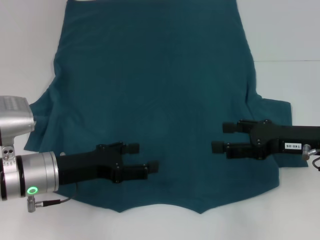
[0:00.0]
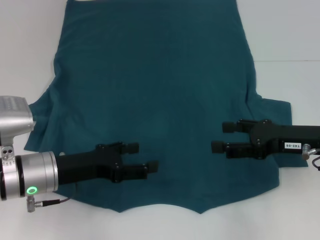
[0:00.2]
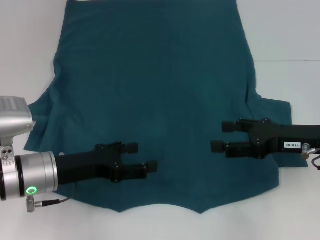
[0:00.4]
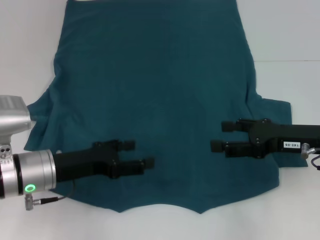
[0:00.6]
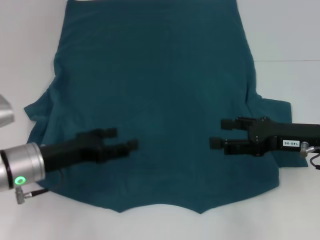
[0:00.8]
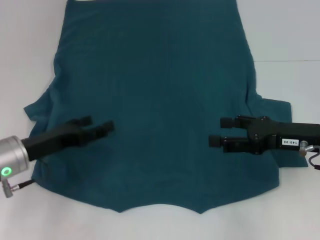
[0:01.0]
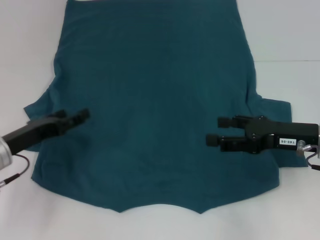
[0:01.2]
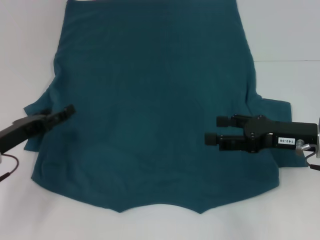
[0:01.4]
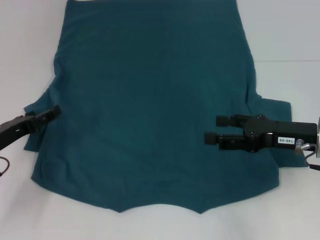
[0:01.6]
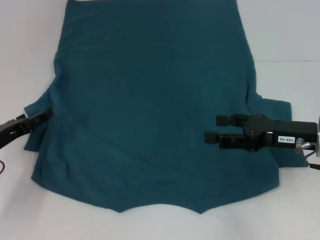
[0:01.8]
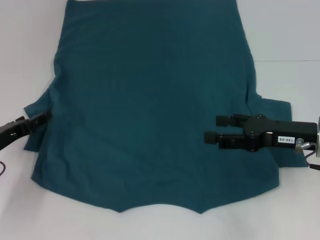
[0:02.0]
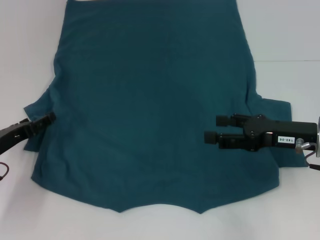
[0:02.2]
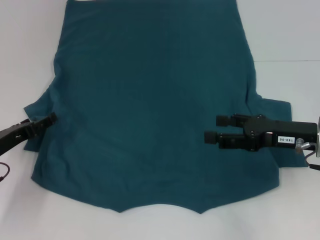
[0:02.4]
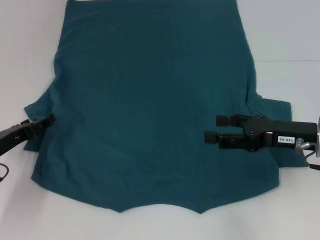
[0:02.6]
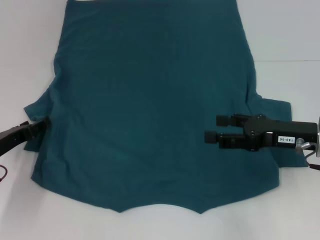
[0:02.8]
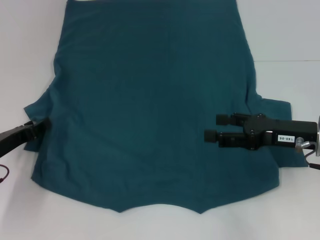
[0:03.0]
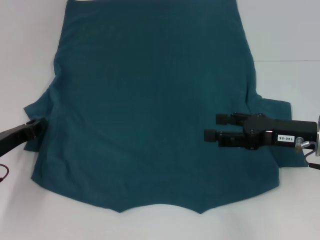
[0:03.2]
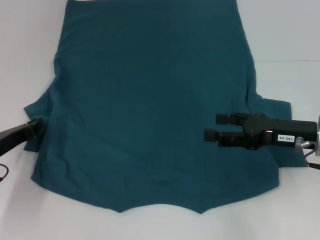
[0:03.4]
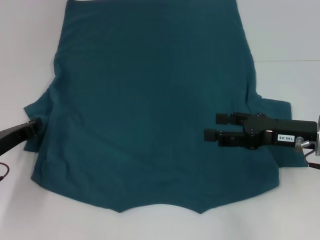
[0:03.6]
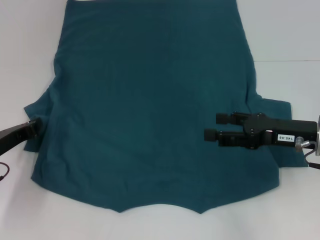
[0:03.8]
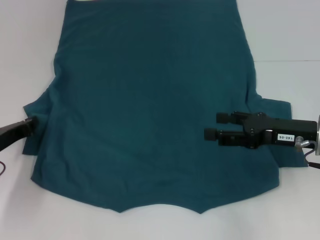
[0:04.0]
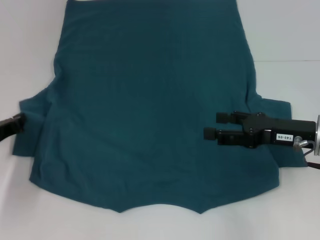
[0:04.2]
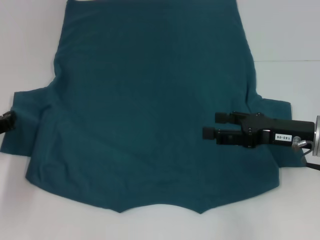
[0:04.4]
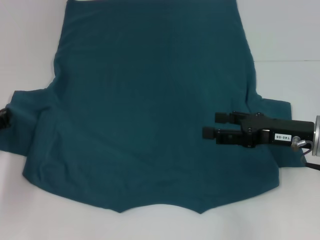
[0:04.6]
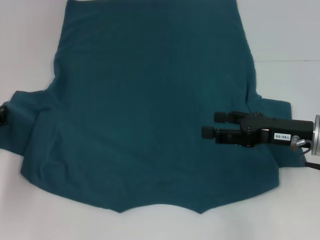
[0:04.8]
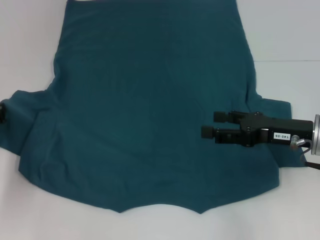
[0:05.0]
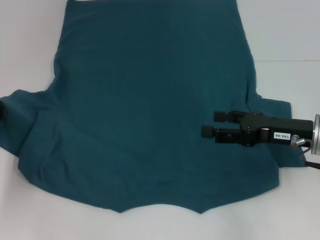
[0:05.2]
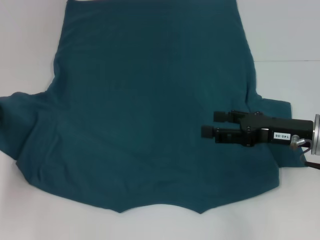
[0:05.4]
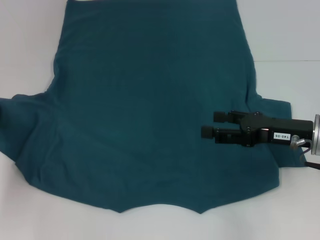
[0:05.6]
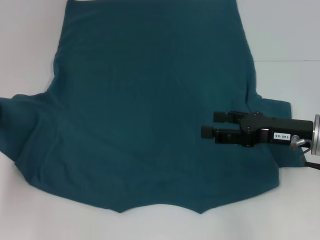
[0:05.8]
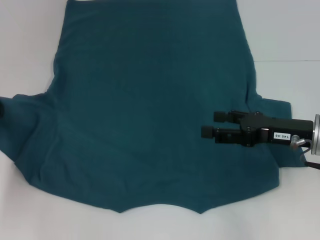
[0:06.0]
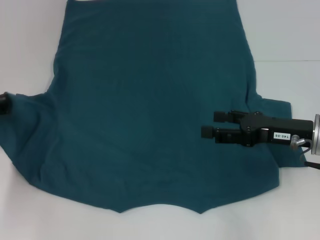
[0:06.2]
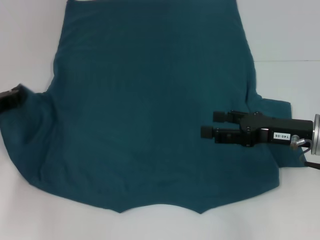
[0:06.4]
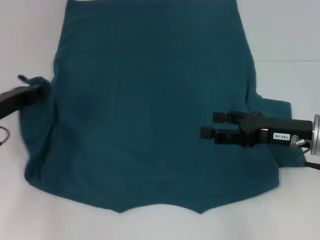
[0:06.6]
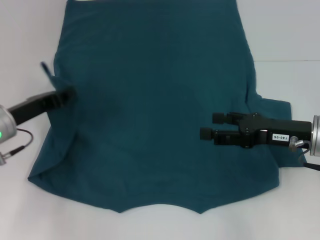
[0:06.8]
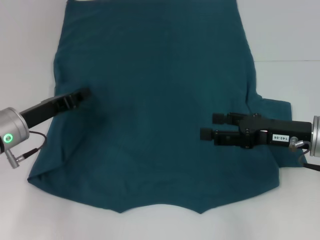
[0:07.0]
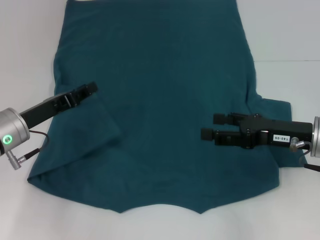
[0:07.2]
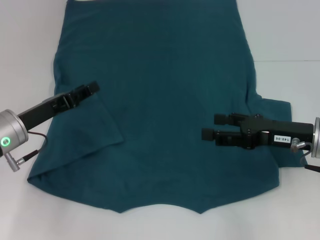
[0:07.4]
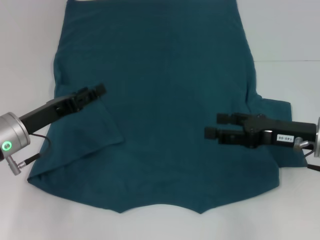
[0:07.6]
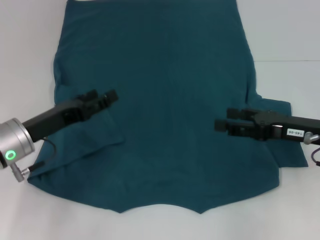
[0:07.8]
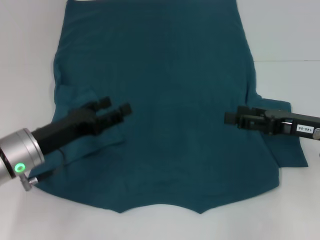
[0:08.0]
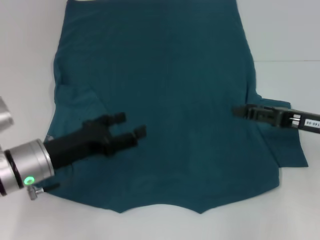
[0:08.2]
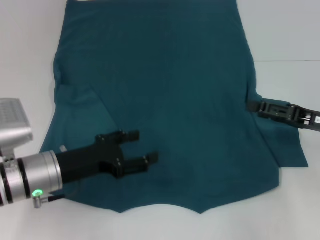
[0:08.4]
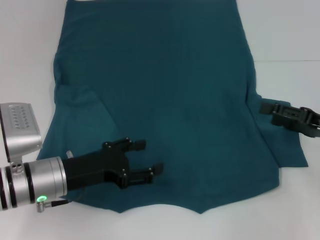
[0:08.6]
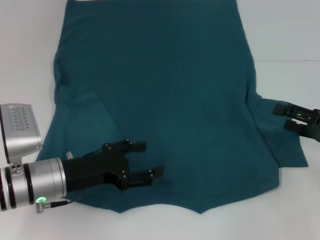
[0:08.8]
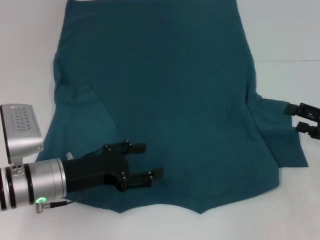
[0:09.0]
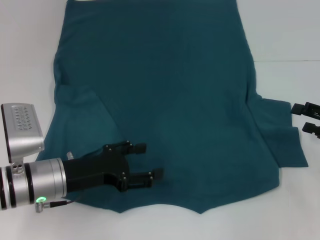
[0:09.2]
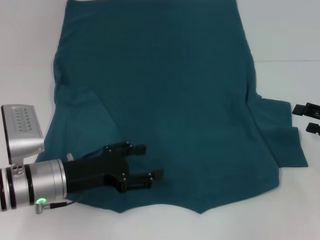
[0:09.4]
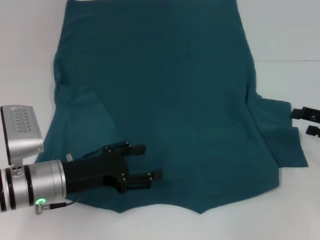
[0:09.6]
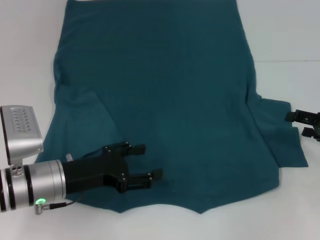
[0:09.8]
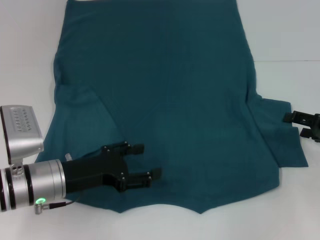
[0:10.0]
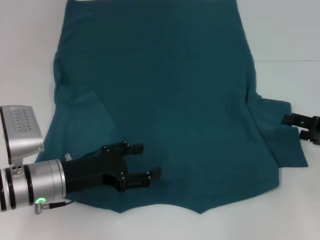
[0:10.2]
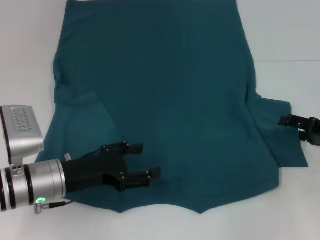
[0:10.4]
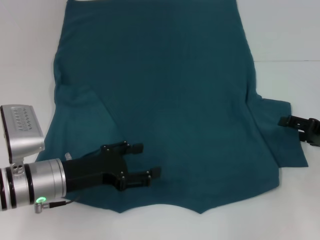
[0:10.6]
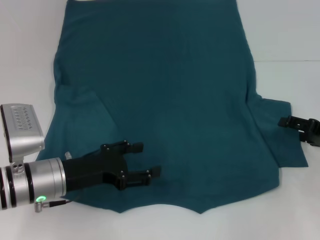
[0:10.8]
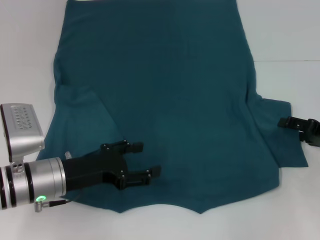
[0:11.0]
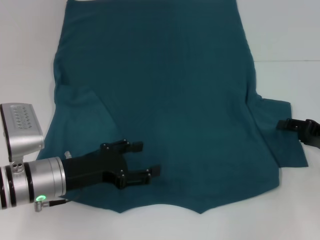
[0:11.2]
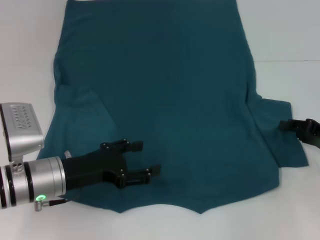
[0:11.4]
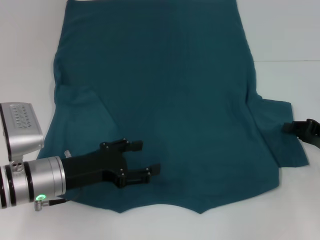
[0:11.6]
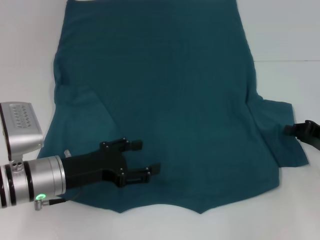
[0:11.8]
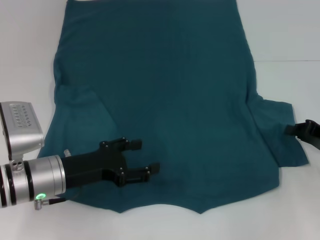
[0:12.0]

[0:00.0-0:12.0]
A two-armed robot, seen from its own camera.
Step, 0:00.0 to 0:07.6: Fold the bottom left sleeve with your left hand.
0:00.0 to 0:01.6: The left gripper travels to the left by some 10 cm.
0:01.6 to 0:03.0: The grippers stay close to where they were, moving slightly.
0:03.0 to 0:04.4: The left gripper closes its fingers.
0:04.4 to 0:06.0: There are only small adjustments of the grippers.
0:06.0 to 0:07.6: The left gripper moves to the right, about 10 cm, and opens up.
0:07.6 to 0:09.0: The left gripper travels to the right by some 5 cm; the right gripper goes about 10 cm to the right.
0:09.0 to 0:10.4: The grippers make only small movements.
0:10.4 to 0:12.0: The right gripper closes up.

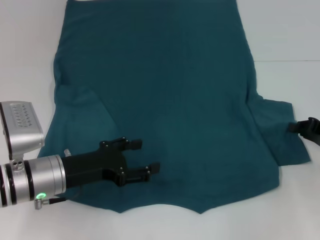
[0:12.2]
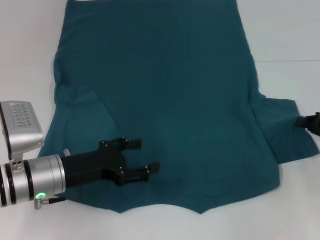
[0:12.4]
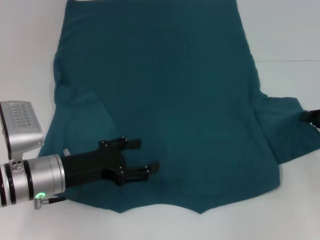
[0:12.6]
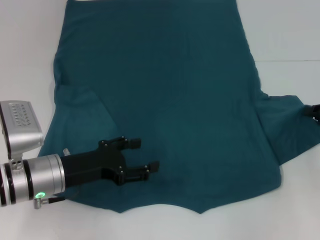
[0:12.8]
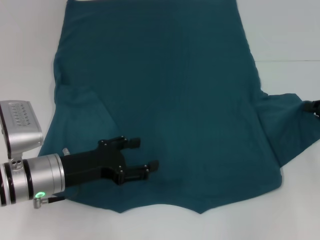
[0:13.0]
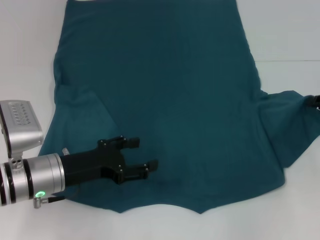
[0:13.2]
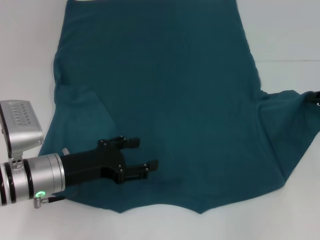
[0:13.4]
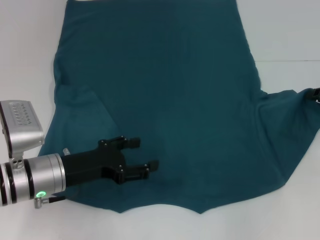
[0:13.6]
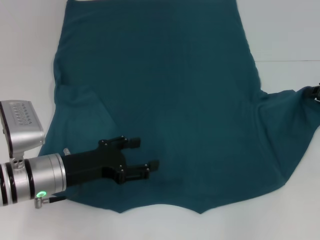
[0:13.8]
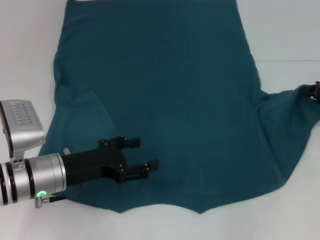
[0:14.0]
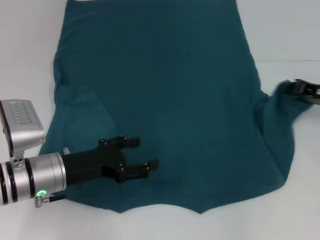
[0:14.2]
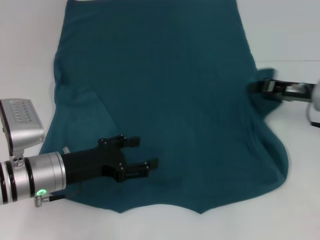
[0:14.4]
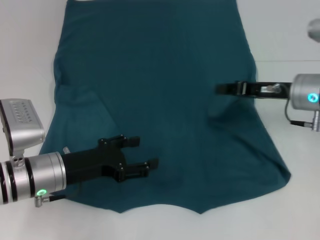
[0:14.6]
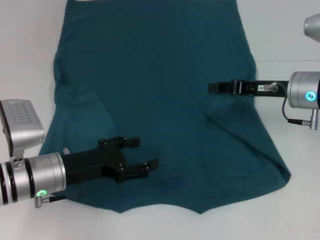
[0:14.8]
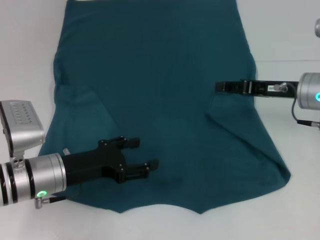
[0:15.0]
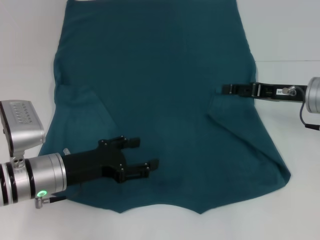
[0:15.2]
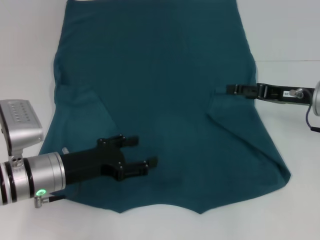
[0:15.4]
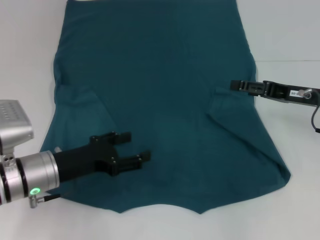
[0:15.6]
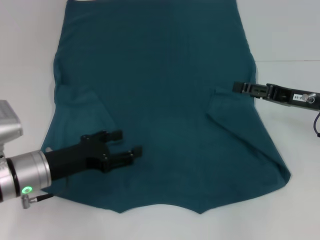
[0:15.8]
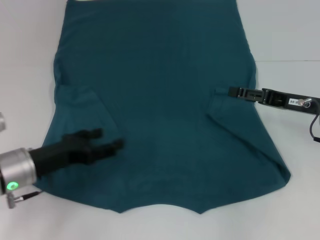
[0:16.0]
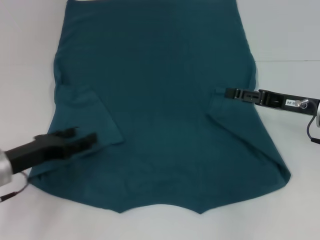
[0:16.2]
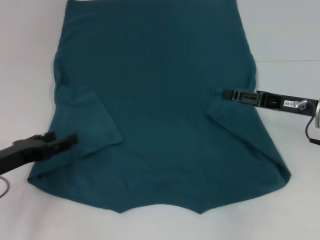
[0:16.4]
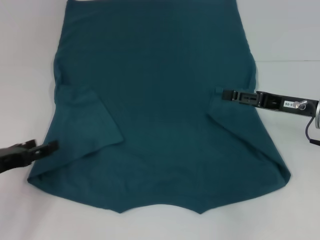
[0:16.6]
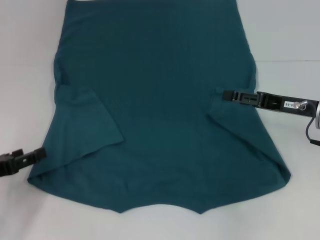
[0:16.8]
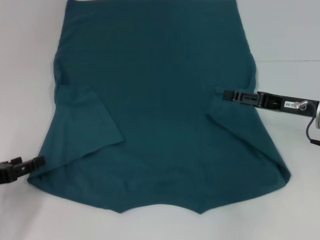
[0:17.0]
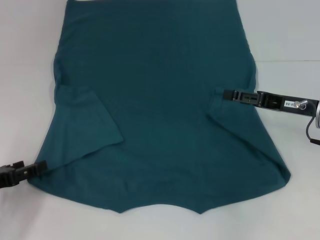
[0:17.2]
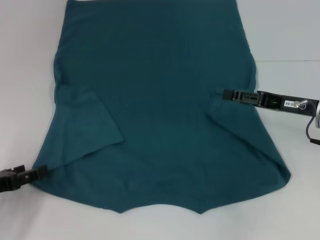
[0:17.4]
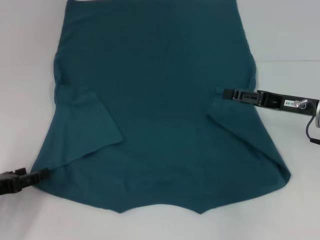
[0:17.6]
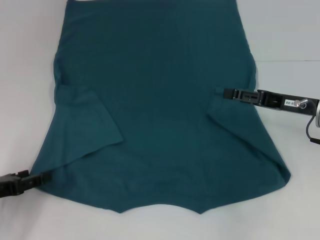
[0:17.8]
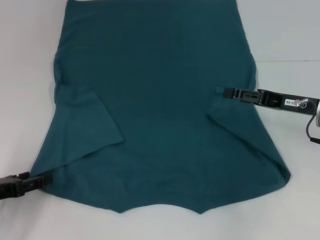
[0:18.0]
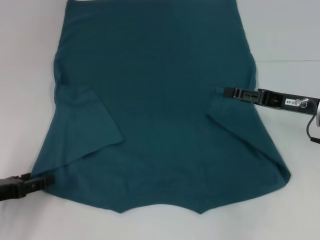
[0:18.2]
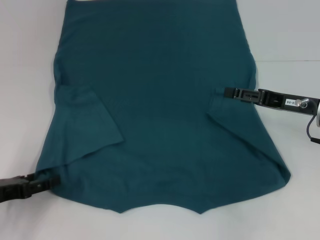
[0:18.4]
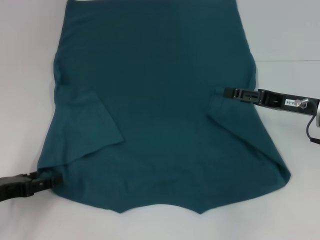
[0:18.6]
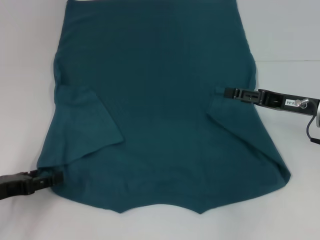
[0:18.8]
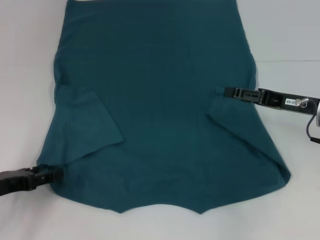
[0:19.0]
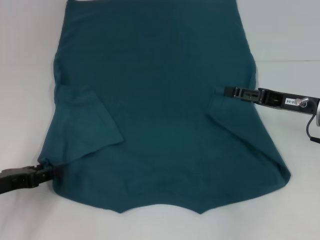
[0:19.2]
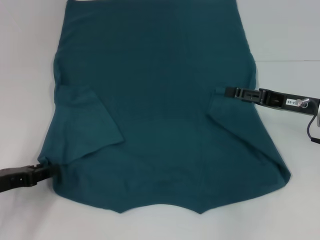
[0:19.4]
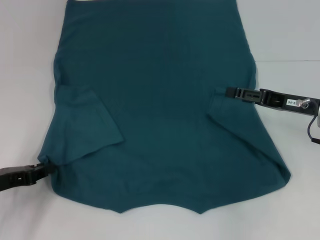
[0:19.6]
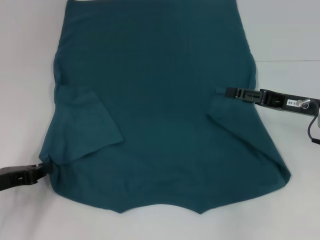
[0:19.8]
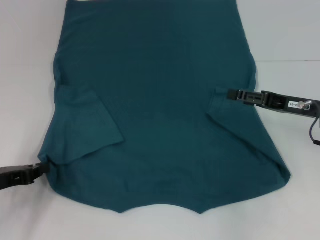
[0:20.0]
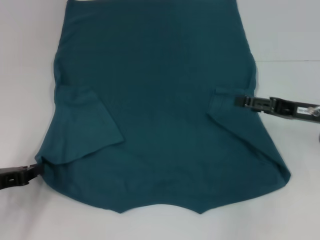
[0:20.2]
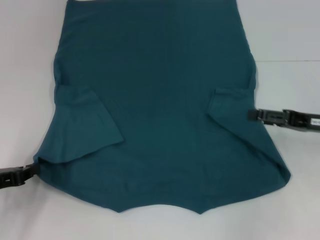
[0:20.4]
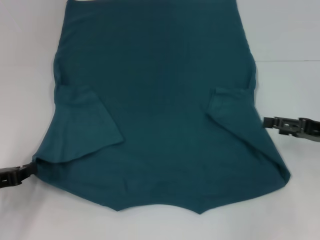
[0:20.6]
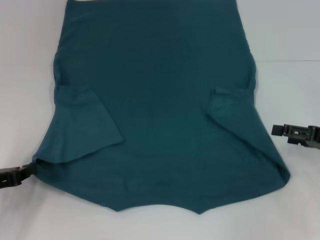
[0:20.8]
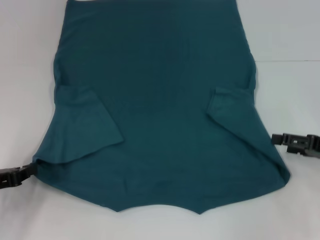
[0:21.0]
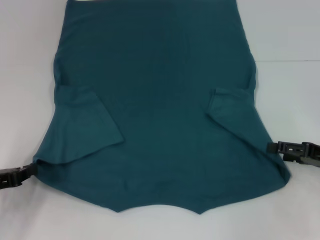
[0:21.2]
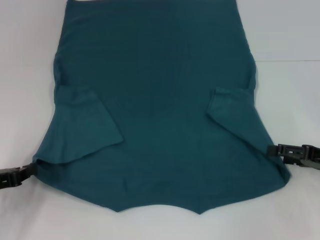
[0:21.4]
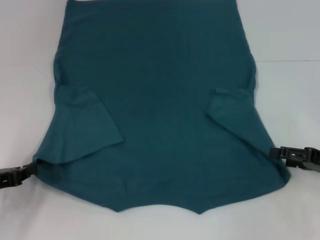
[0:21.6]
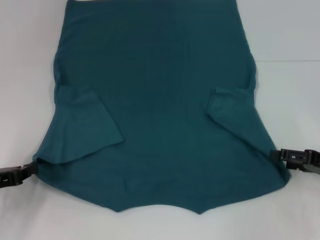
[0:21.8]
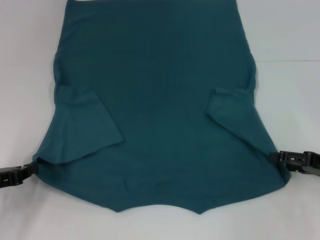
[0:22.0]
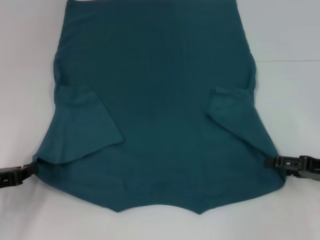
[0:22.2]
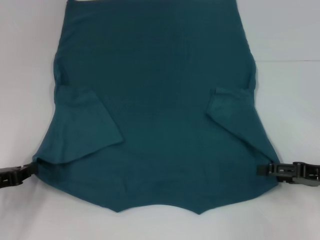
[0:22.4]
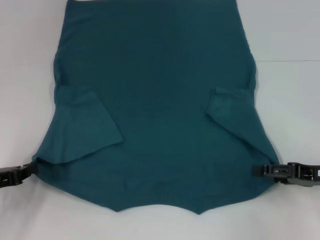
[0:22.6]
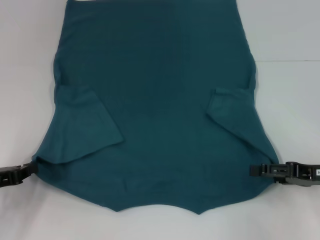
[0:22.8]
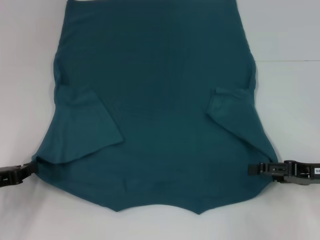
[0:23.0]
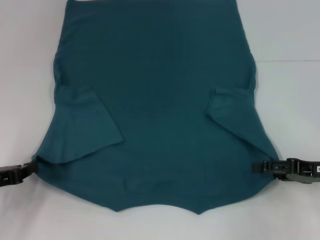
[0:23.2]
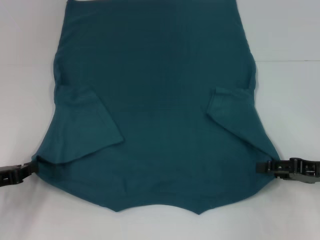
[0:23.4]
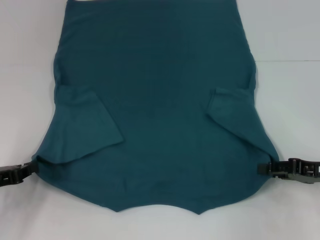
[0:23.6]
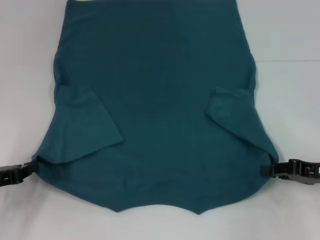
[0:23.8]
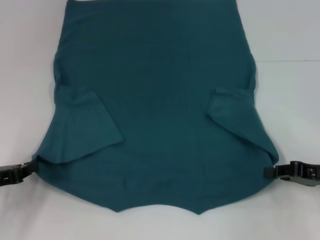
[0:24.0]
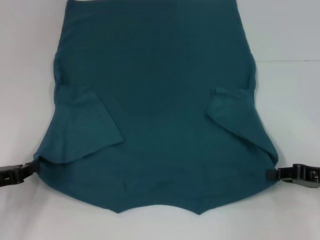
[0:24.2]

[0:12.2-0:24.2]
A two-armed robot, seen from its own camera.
Step, 0:12.2 to 0:15.0: Fold the bottom right sleeve to the right.
Step, 0:15.2 to 0:19.8: Grab the bottom left corner with your left hand.
Step, 0:20.0 to 0:24.0: Grab the bottom right corner with your right hand.
0:12.2 to 0:13.8: The right gripper travels forward by about 5 cm.
0:13.8 to 0:15.2: The right gripper shifts about 10 cm to the left, and opens up.
0:15.2 to 0:16.6: The right gripper opens its fingers; the left gripper shifts approximately 10 cm to the left.
0:16.6 to 0:18.2: The grippers stay close to where they were, moving slightly.
0:18.2 to 0:19.8: The left gripper closes up.
0:19.8 to 0:21.2: The right gripper heads to the right and backward, covering approximately 10 cm.
0:21.2 to 0:22.6: There are only small adjustments of the grippers.
0:22.6 to 0:24.2: The right gripper closes.
